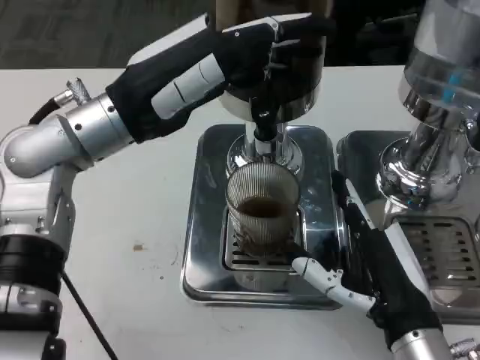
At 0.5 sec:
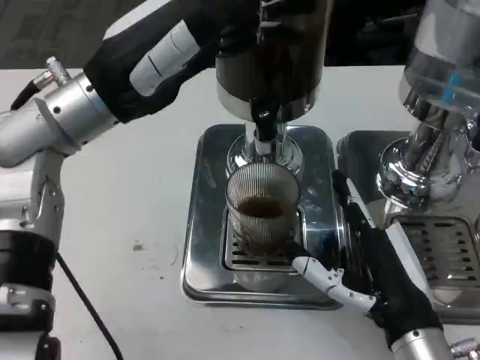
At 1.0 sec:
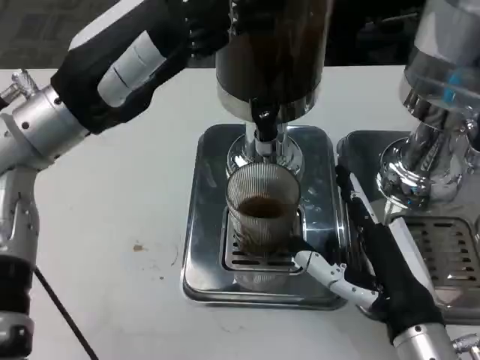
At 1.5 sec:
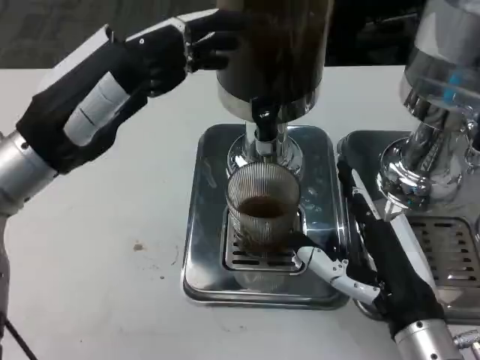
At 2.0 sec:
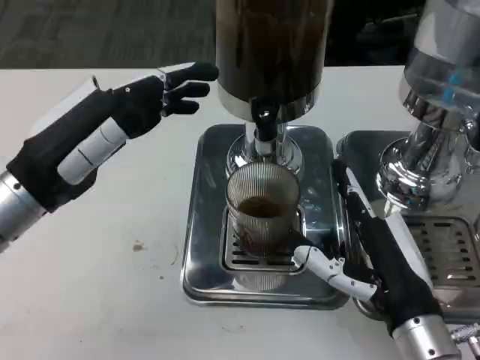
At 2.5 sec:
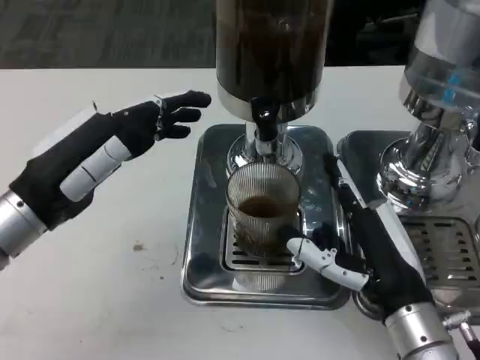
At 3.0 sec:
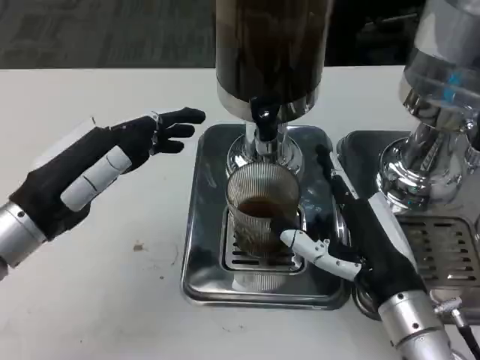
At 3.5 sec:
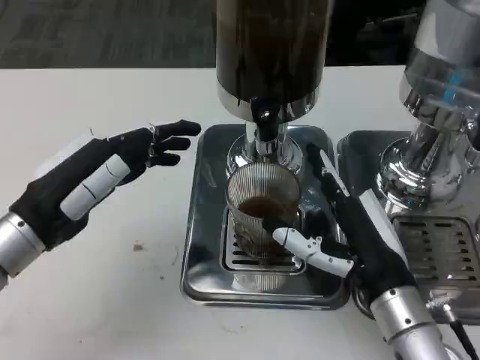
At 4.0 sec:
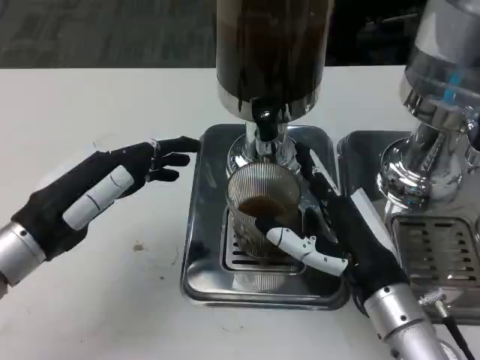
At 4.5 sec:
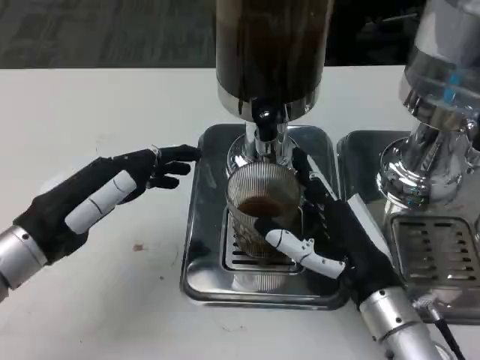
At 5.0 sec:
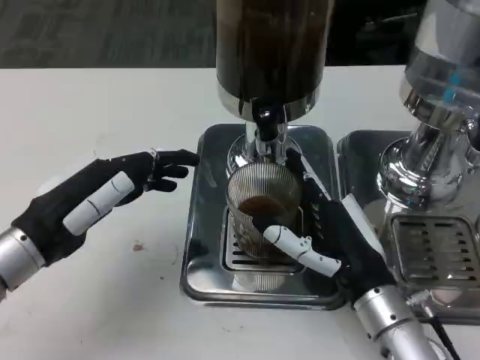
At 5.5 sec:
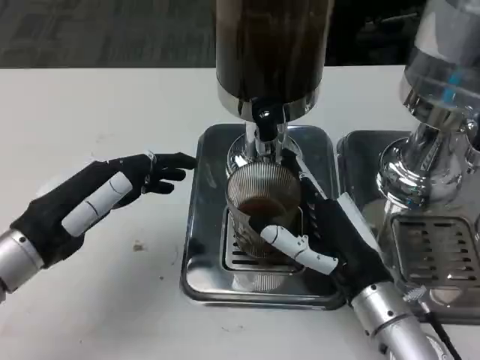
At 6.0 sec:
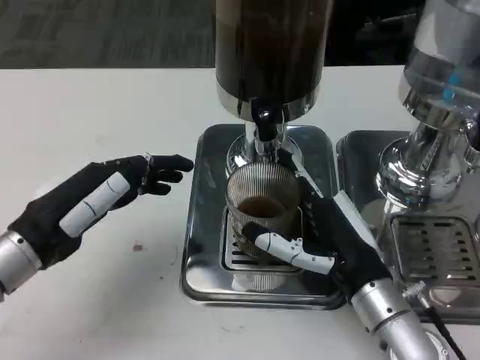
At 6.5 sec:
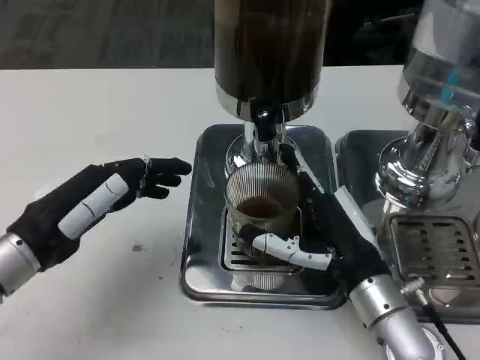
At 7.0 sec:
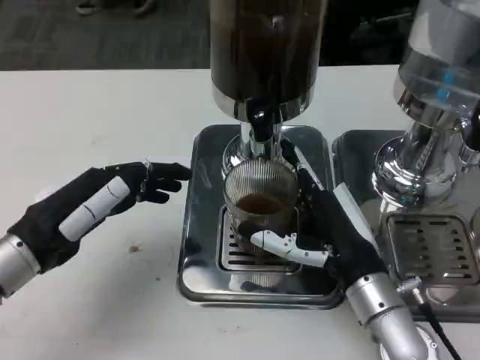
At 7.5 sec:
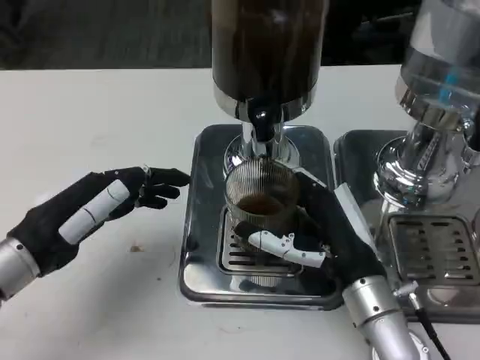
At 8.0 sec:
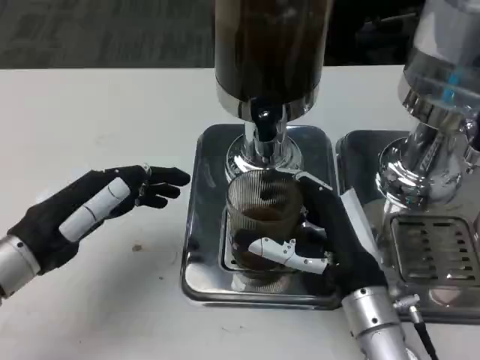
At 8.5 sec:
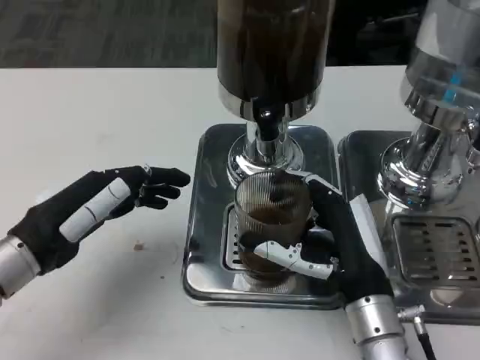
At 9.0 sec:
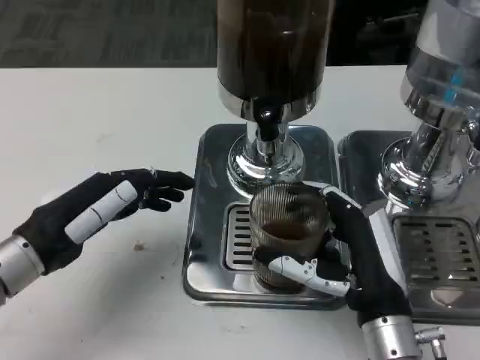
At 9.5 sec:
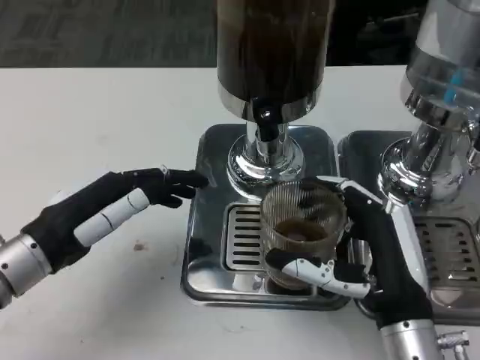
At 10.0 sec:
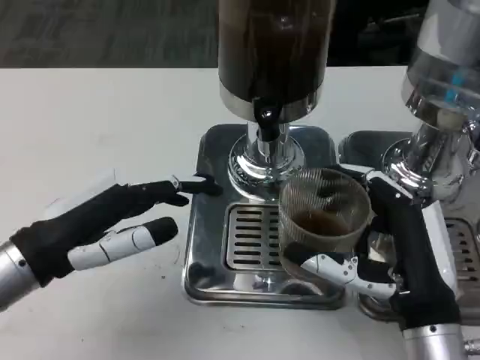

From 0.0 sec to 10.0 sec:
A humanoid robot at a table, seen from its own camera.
Task of the whole recording: Grasp the cup under the faucet to collect the drink, then remove the cup.
From 0.0 sec to 2.0 sec: The left hand heads backward and to the left, covering approximately 10 cm.
From 4.0 sec to 8.0 sec: The hands stay close to where they were, moving slightly.
From 8.0 sec to 10.0 sec: The right hand shifts some 5 cm backward.

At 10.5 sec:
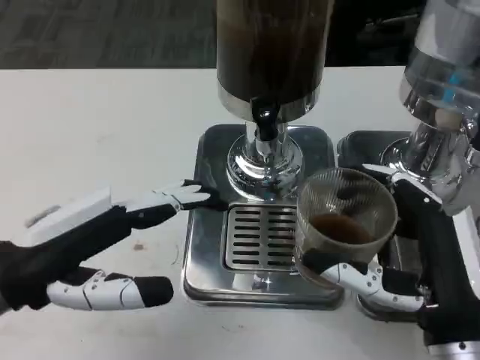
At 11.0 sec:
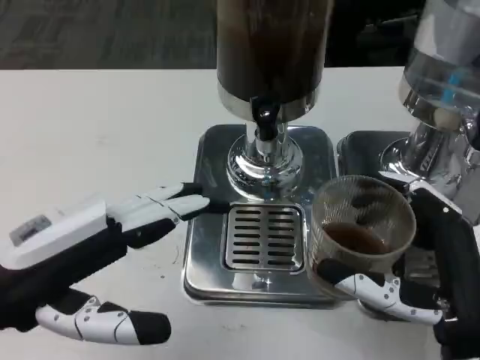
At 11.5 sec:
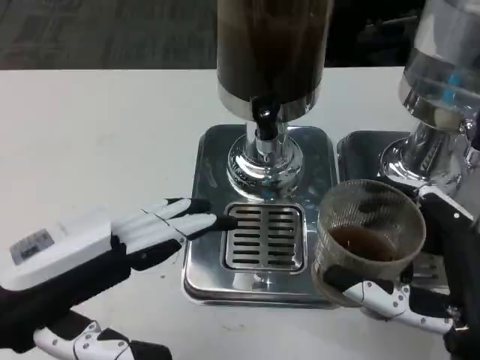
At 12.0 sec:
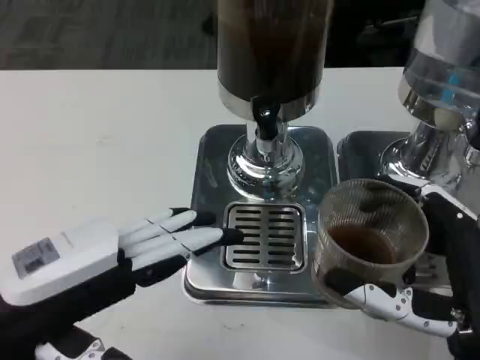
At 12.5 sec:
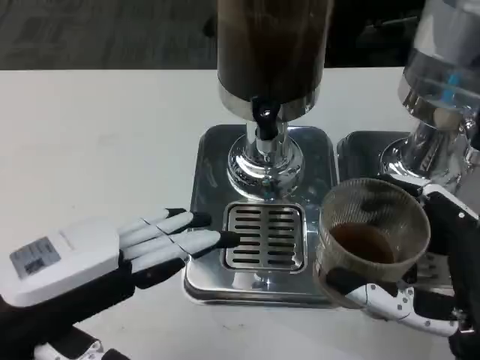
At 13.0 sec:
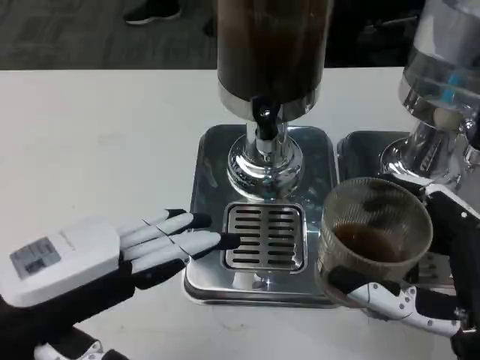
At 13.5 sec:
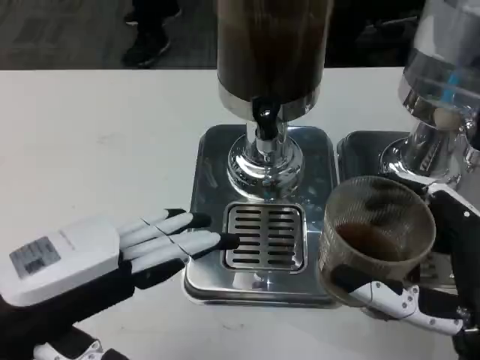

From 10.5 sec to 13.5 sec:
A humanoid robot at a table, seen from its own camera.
Task of the whole recording: Grasp the cup under the faucet to collect the drink, then remove the cup.
From 12.0 sec to 13.5 sec: Both hands stay put.
